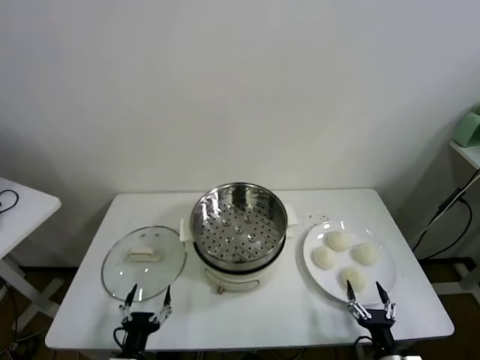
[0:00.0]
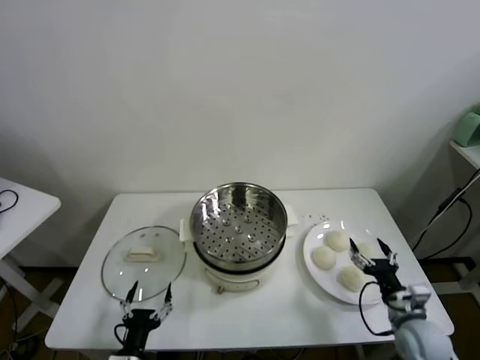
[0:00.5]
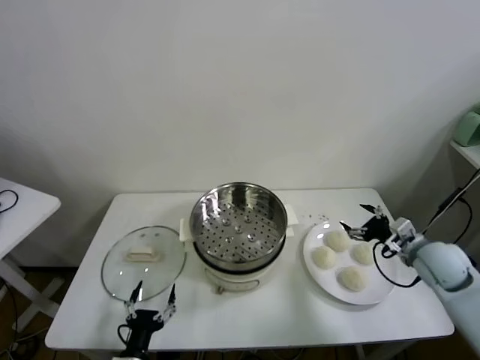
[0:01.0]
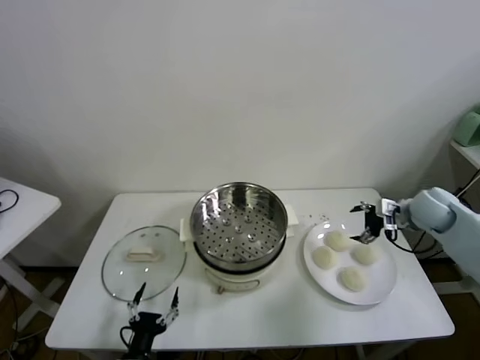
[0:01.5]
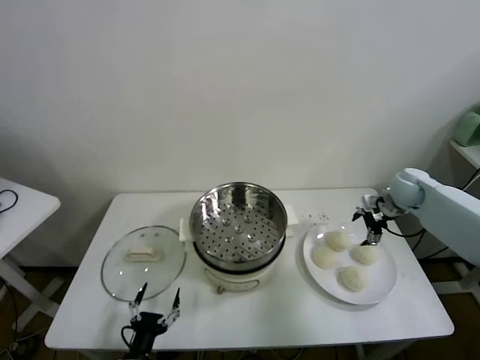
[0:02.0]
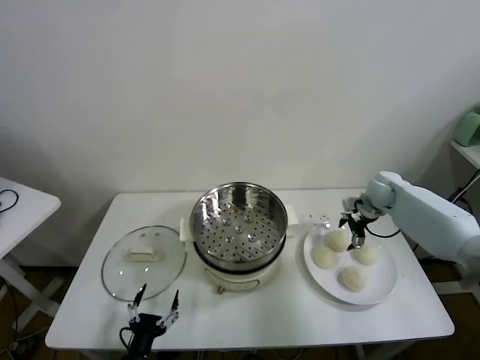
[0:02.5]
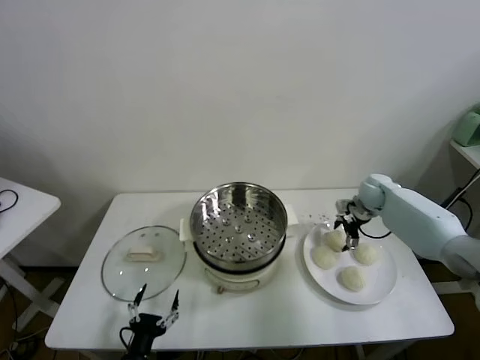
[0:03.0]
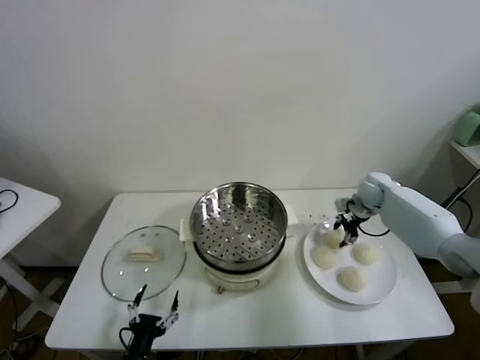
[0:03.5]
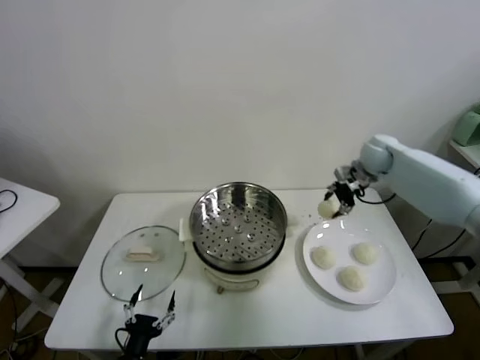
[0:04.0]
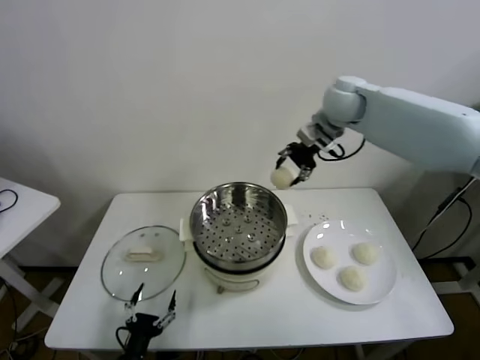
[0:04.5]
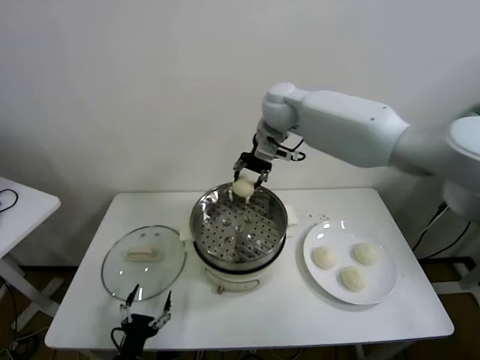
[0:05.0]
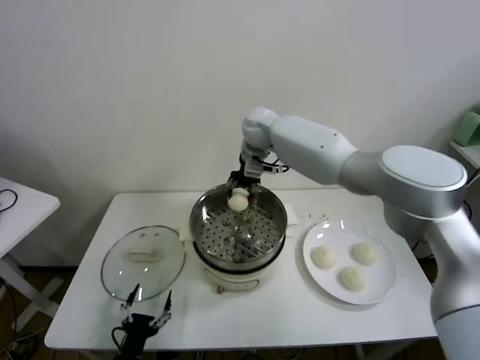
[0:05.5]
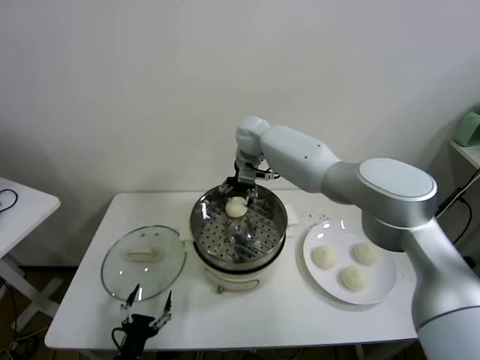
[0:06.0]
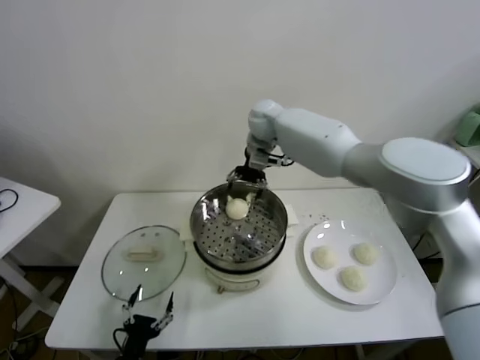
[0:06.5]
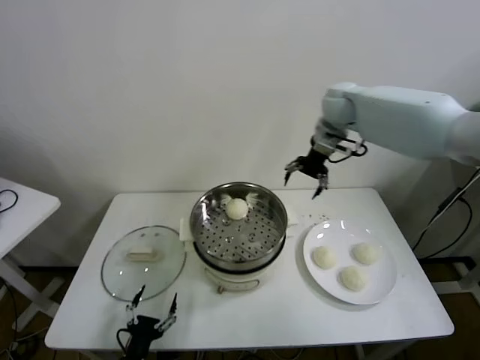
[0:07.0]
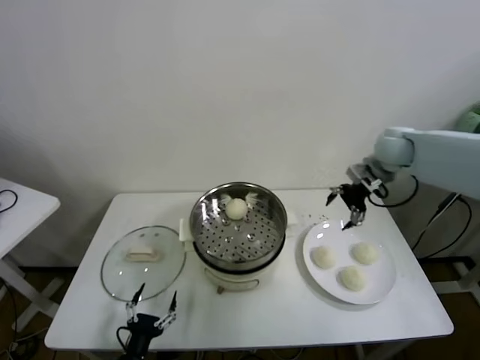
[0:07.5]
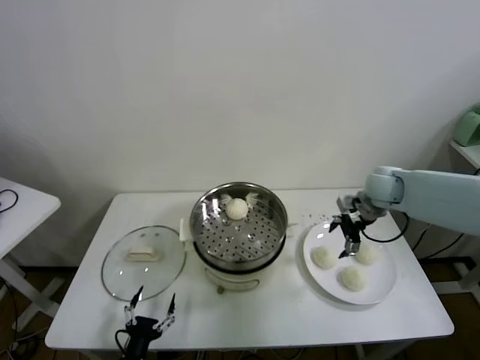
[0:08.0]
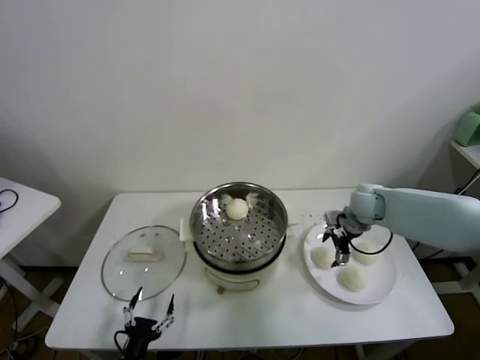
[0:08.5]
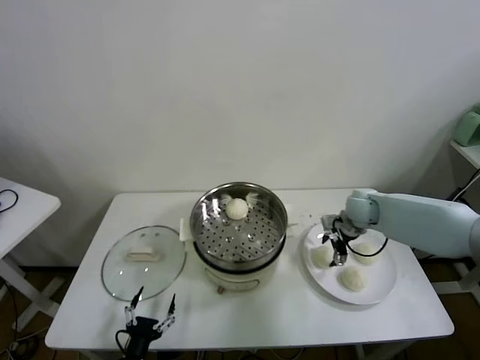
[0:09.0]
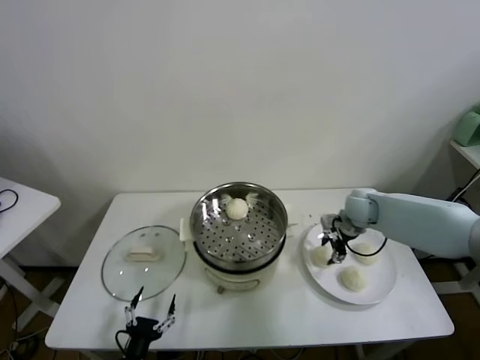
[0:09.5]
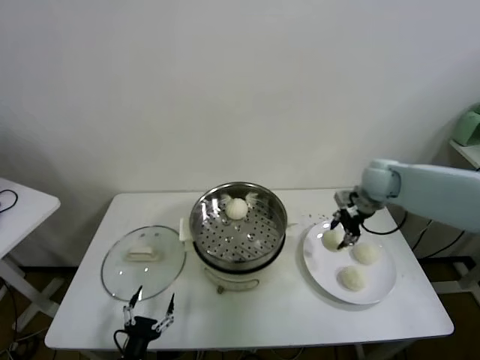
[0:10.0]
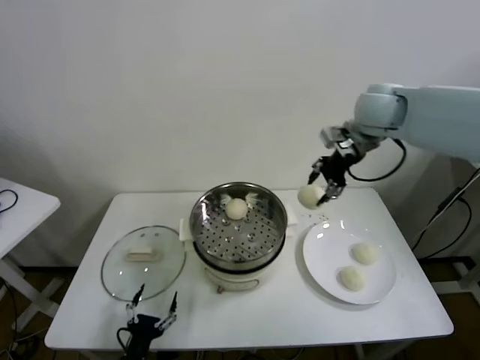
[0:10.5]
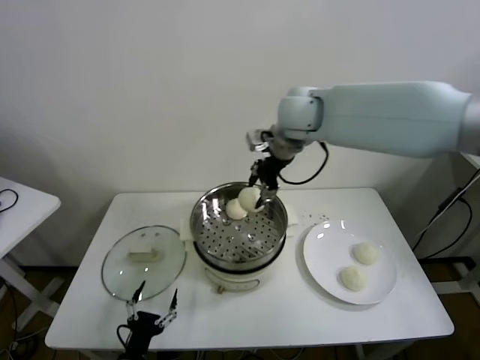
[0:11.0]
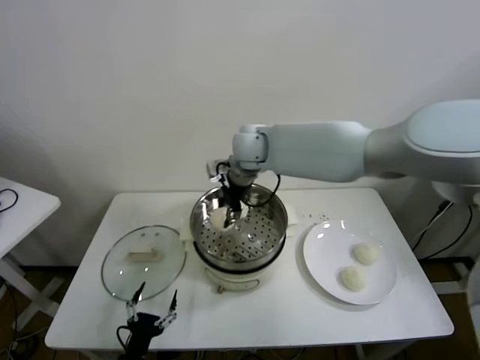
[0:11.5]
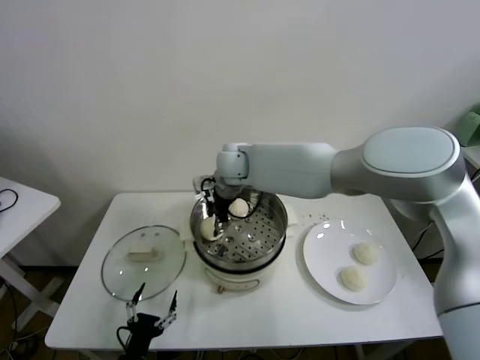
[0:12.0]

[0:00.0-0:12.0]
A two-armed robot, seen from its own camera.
Task of the whole recording: take steamed baozi put them in steamer.
Step, 0.0 to 3.0 s: Grasp the baozi in the plate with right gripper.
Step, 3.5 to 6.0 s: Place the baozi on the steamer with right gripper.
Step, 7.0 to 9.0 s: Grasp the baozi in the plate with right gripper.
2.0 to 4.0 s: The right gripper travels upward, to the left and forward by about 15 cm, and closes.
4.0 to 6.0 s: The right gripper heads to the left, covering roughly 30 cm, and opens up.
6.0 to 8.0 s: The right gripper shifts about 30 cm to the right.
8.0 to 10.0 s: The right gripper travels upward by roughly 5 cm, and closes up.
10.0 to 12.0 s: The right gripper goes some 35 cm to the left.

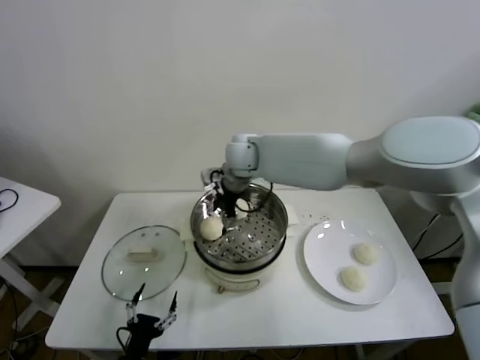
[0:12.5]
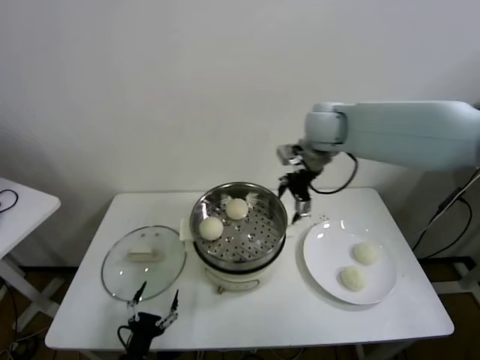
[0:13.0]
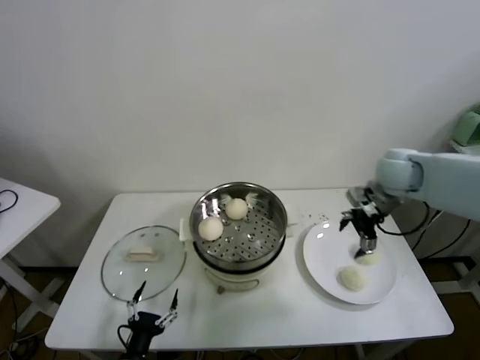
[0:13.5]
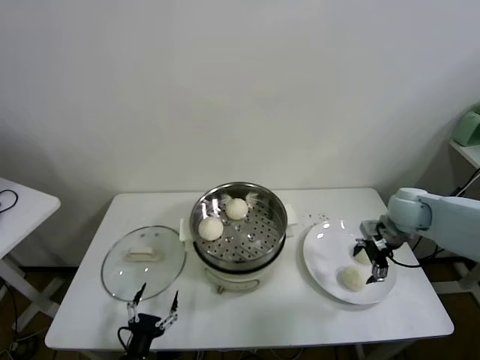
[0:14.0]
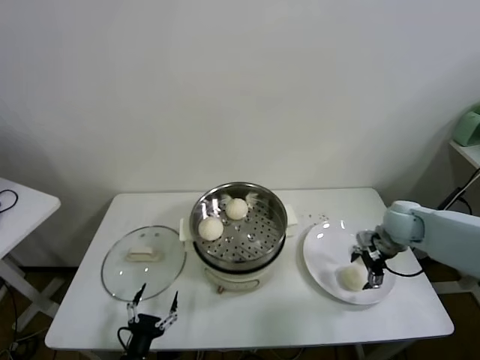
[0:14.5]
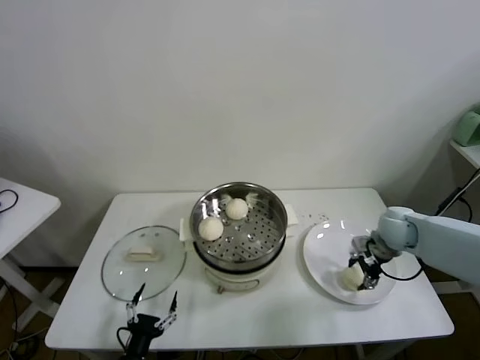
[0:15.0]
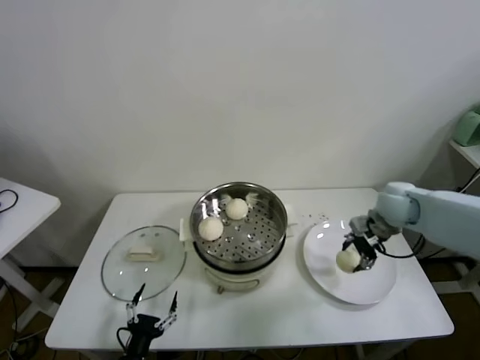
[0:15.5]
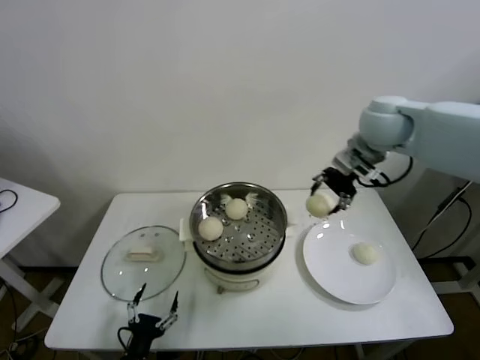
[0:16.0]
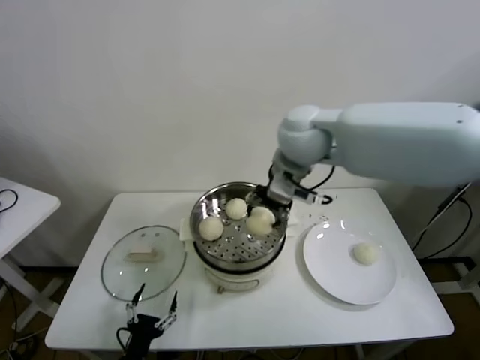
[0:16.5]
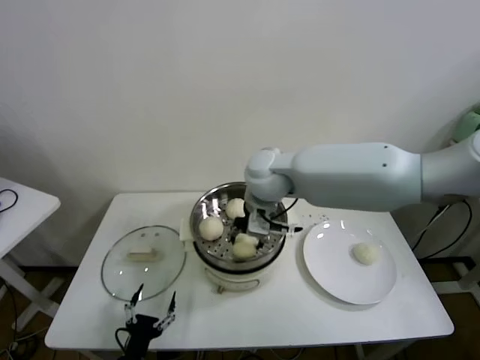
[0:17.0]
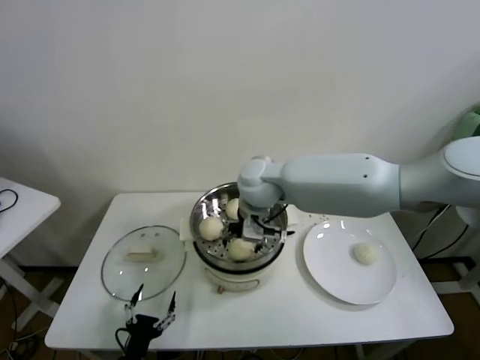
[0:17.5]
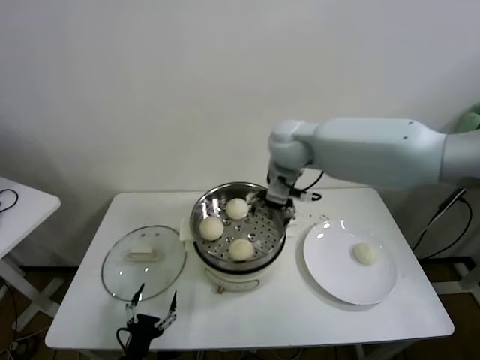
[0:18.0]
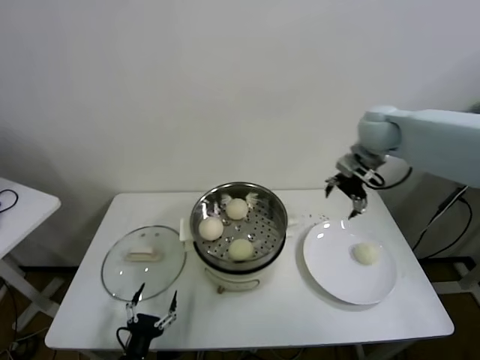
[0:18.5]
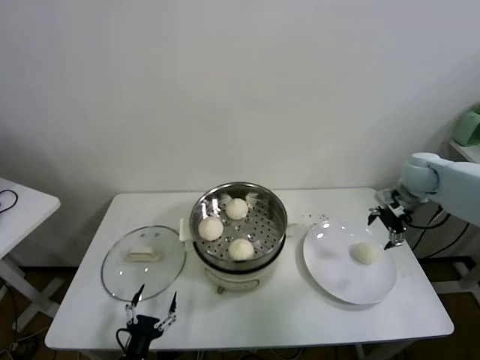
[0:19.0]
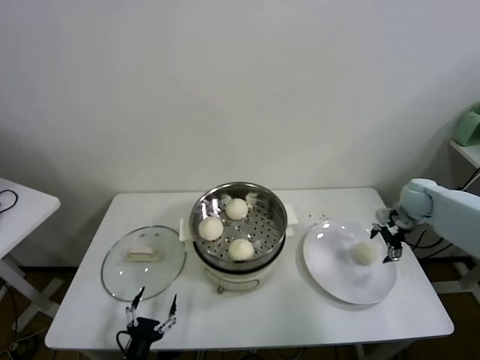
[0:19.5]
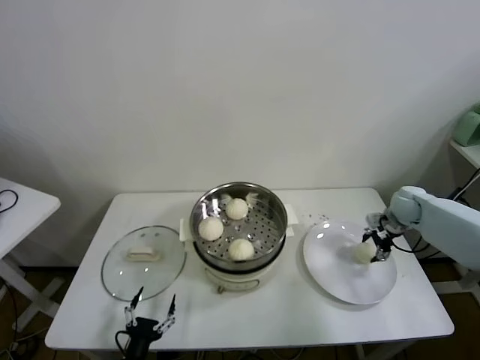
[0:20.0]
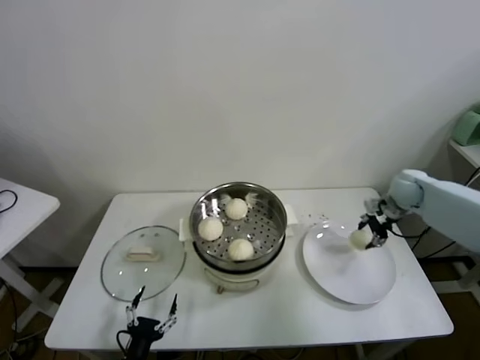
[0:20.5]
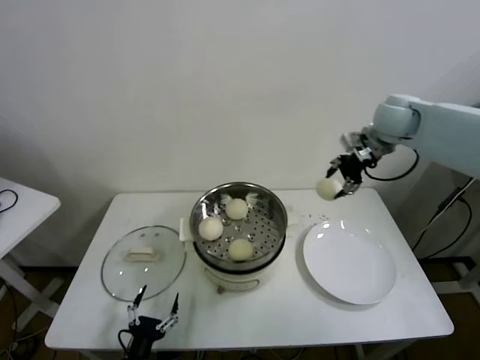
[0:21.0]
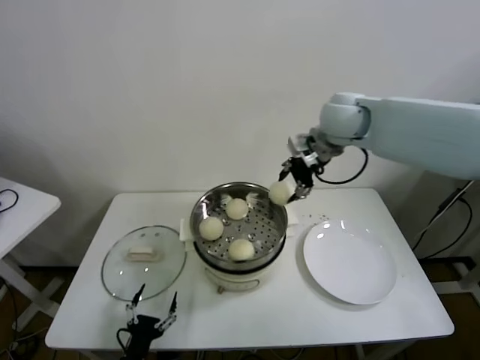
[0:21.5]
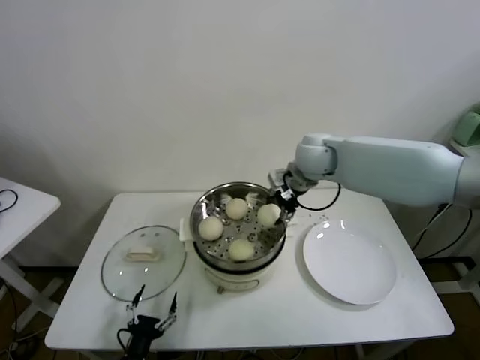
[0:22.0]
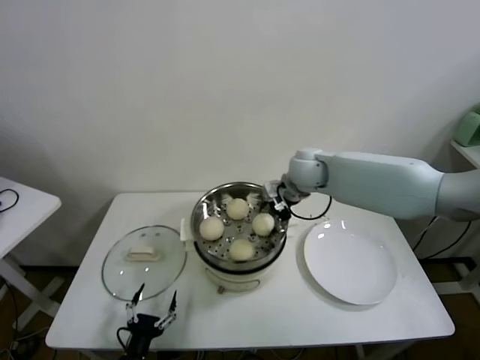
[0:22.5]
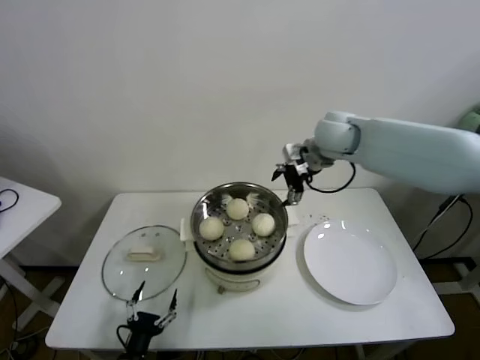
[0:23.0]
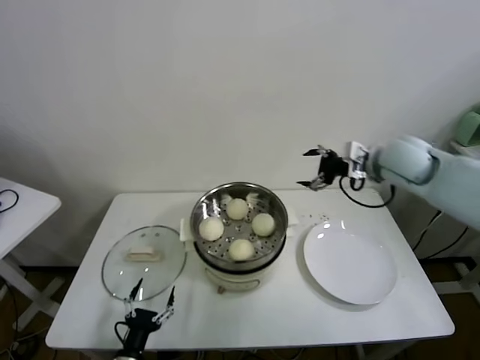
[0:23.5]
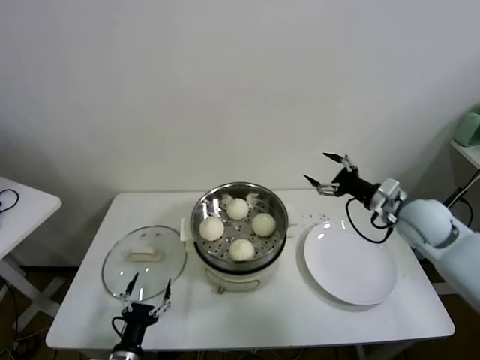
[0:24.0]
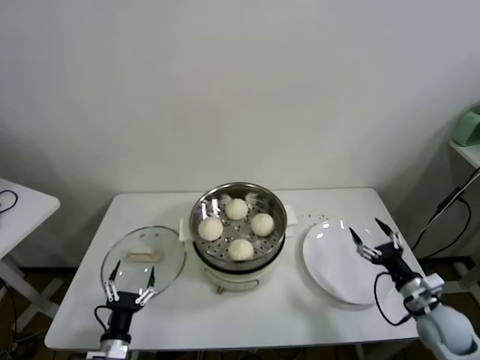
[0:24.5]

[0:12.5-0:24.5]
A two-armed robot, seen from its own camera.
Task of the whole recording: take steamed baozi put them in steamer.
Step, 13.0 to 15.0 s: Grasp the baozi in the plate with right gripper.
Step, 15.5 to 17.5 s: Place the baozi on the steamer with right gripper.
Step, 18.0 to 20.0 s: Grasp the baozi in the plate with right gripper.
Step, 20.5 to 22.5 s: Place the baozi on the steamer with right gripper.
12.5 to 14.5 s: The right gripper moves to the right and downward, about 40 cm.
14.5 to 16.5 s: The right gripper goes some 35 cm to the left and upward, and closes up.
16.5 to 18.5 s: The right gripper shifts approximately 20 cm to the right, and opens.
18.5 to 20.5 s: The right gripper goes approximately 20 cm downward and to the right, and closes up.
20.5 to 22.5 s: The right gripper moves to the left, about 25 cm, and opens up.
22.5 to 24.5 s: The right gripper moves to the right, backward and downward, roughly 40 cm.

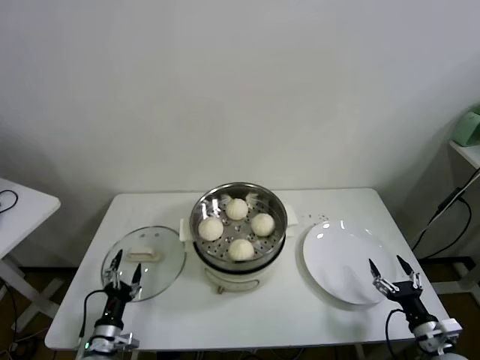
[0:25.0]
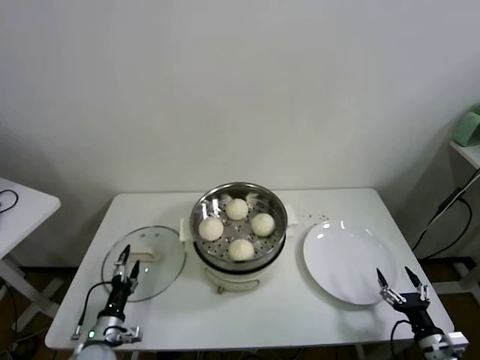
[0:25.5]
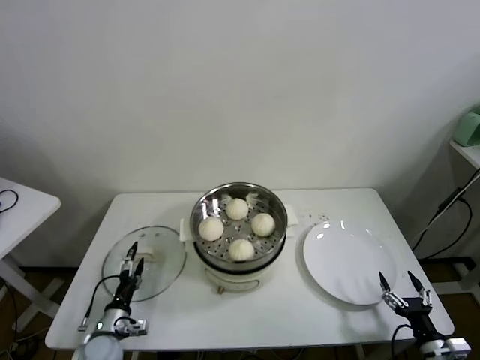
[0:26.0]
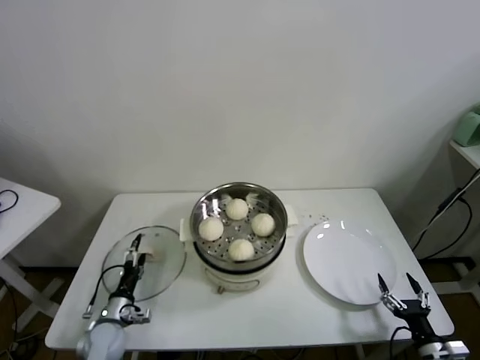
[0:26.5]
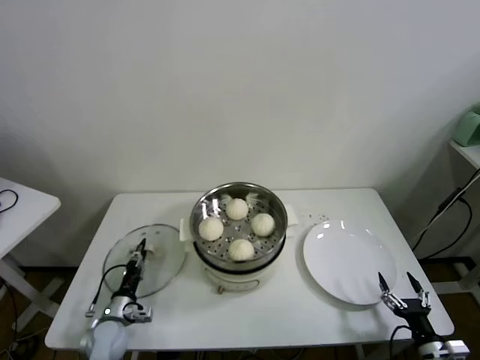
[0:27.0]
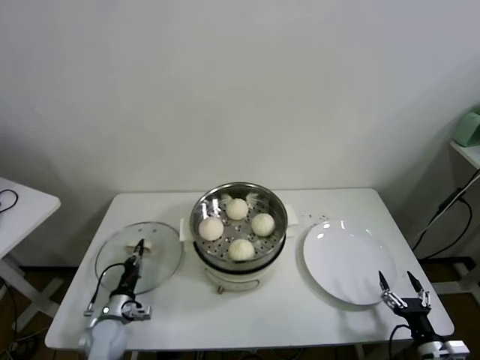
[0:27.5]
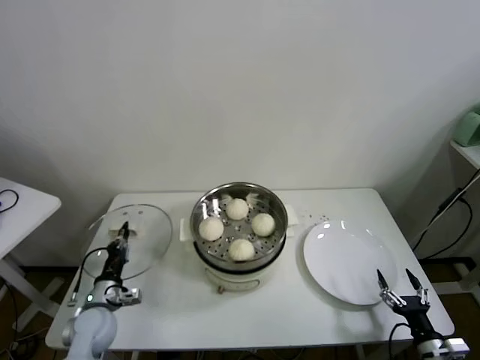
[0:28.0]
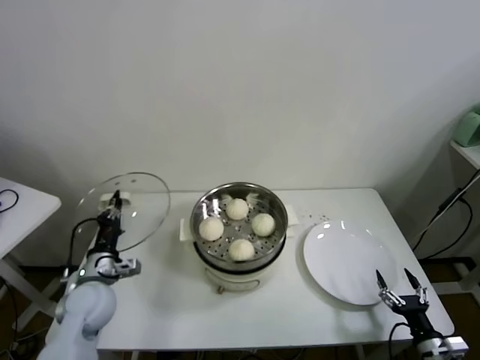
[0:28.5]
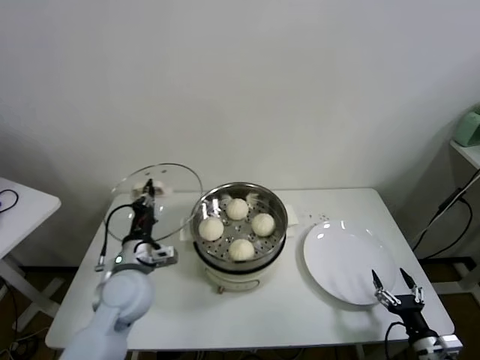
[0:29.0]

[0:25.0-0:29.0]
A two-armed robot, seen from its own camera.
Task of the whole recording: take steamed baozi put them in steamer.
25.0 to 27.0 s: The left gripper moves forward, some 10 cm, and closes.
27.0 to 29.0 s: The left gripper shifts approximately 25 cm upward and to the right, and closes.
